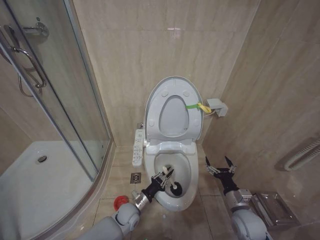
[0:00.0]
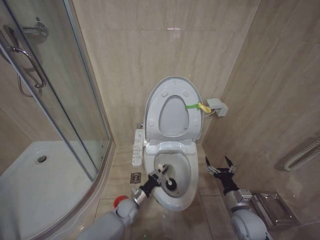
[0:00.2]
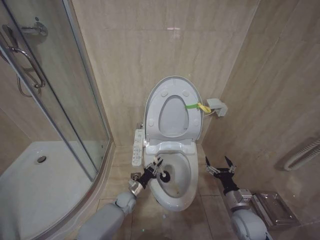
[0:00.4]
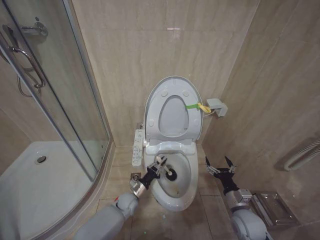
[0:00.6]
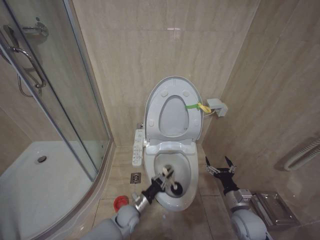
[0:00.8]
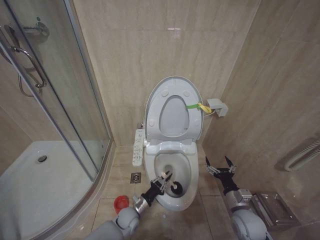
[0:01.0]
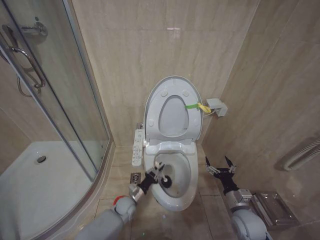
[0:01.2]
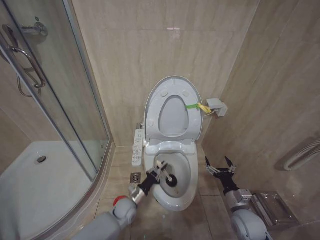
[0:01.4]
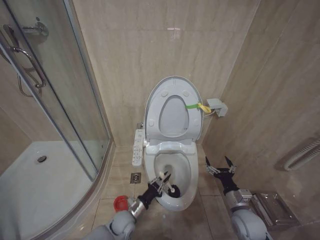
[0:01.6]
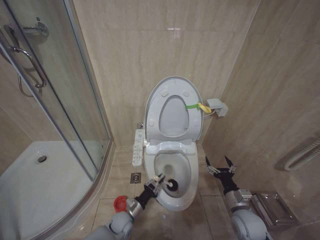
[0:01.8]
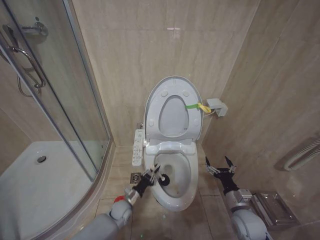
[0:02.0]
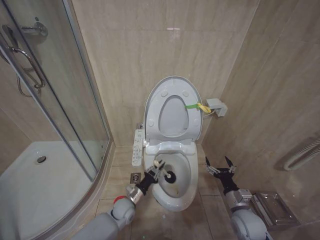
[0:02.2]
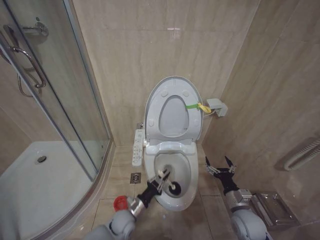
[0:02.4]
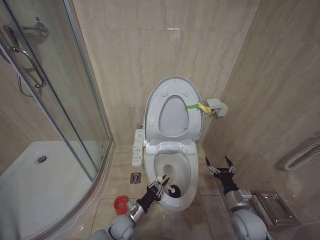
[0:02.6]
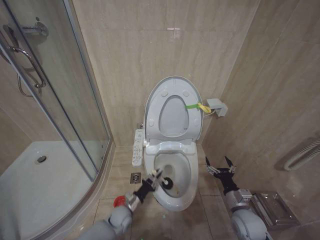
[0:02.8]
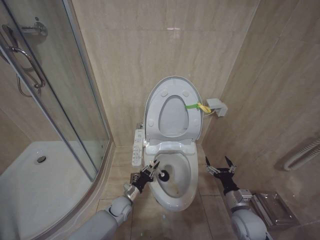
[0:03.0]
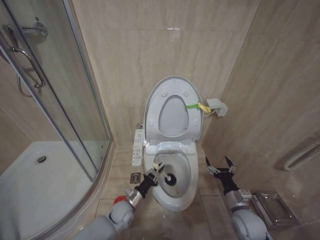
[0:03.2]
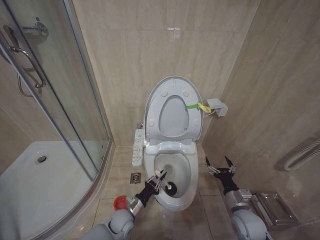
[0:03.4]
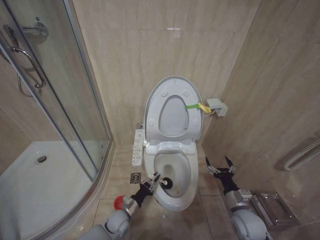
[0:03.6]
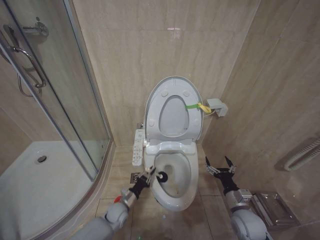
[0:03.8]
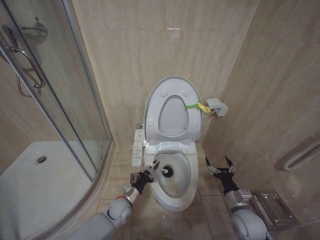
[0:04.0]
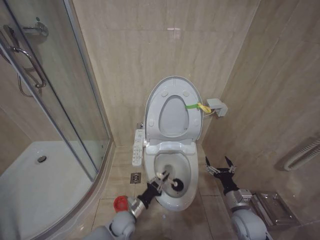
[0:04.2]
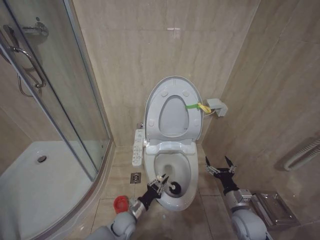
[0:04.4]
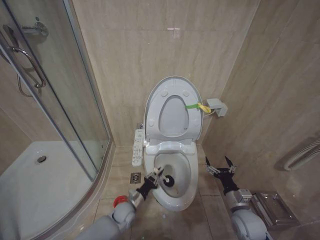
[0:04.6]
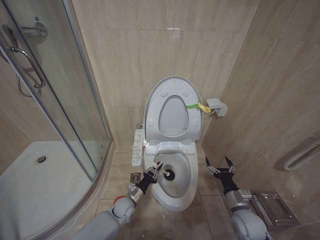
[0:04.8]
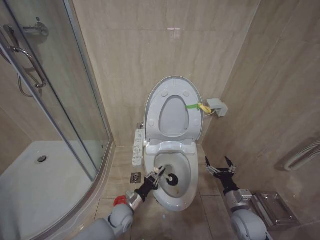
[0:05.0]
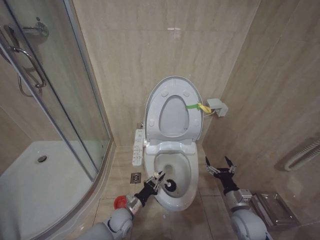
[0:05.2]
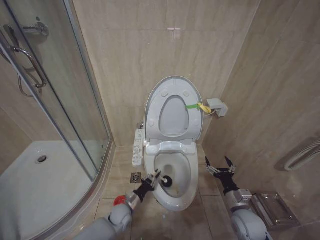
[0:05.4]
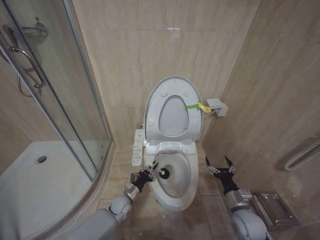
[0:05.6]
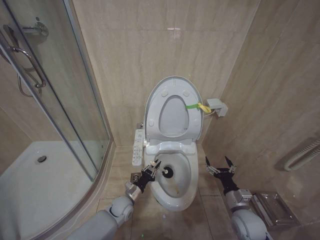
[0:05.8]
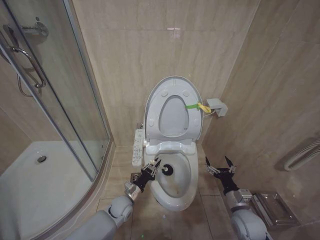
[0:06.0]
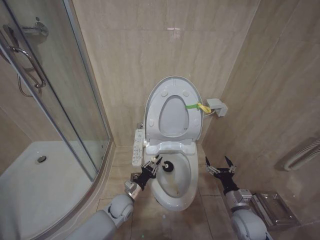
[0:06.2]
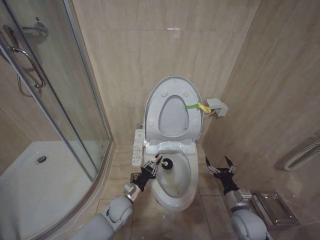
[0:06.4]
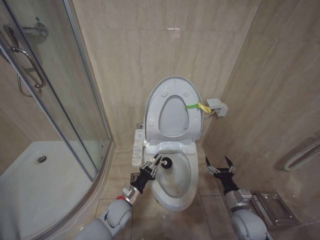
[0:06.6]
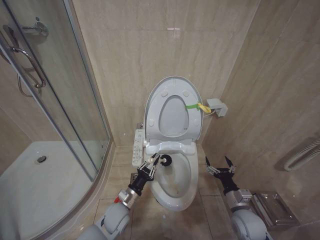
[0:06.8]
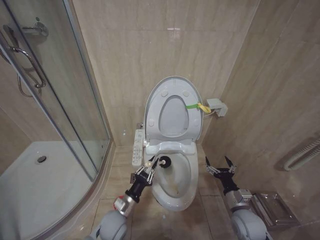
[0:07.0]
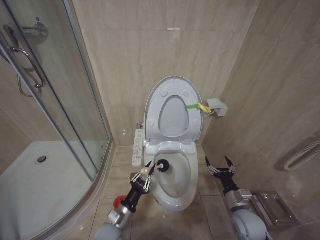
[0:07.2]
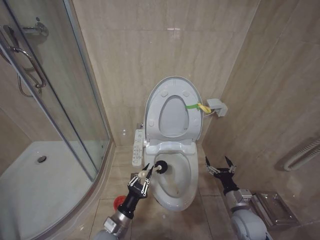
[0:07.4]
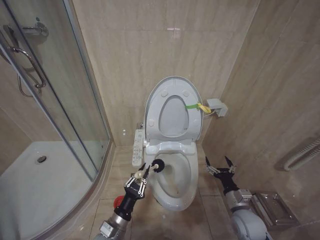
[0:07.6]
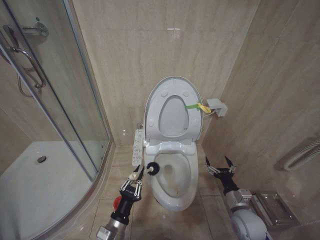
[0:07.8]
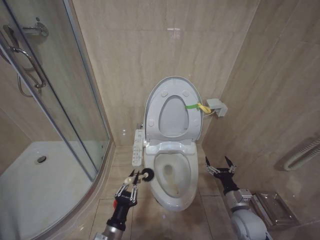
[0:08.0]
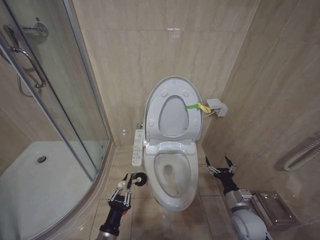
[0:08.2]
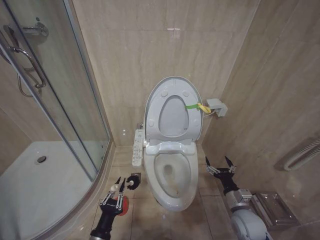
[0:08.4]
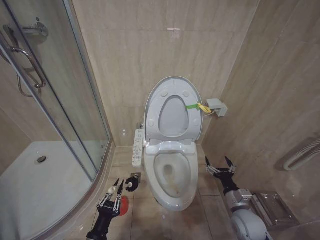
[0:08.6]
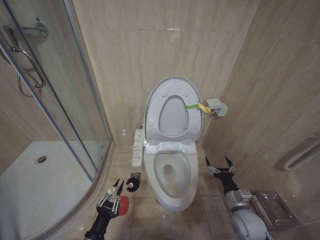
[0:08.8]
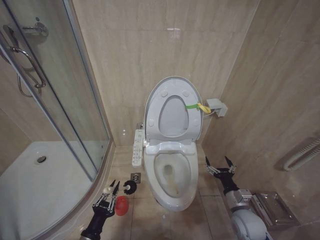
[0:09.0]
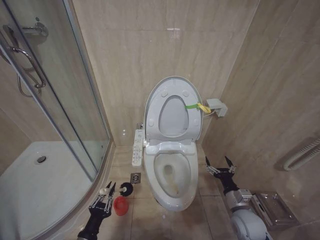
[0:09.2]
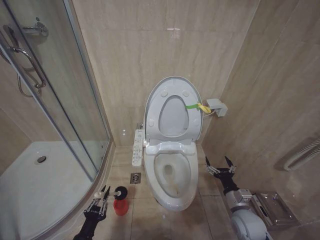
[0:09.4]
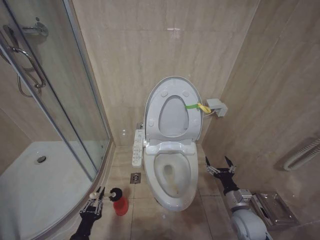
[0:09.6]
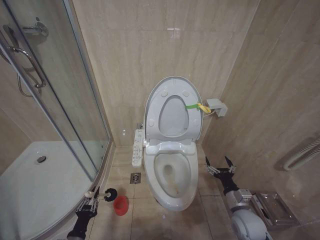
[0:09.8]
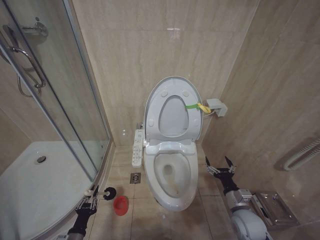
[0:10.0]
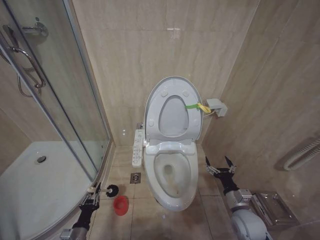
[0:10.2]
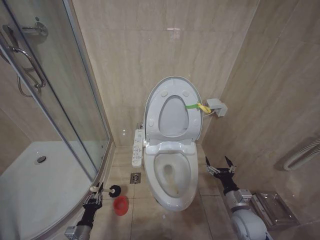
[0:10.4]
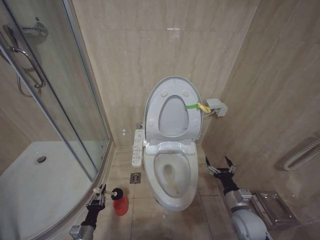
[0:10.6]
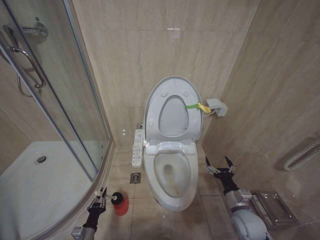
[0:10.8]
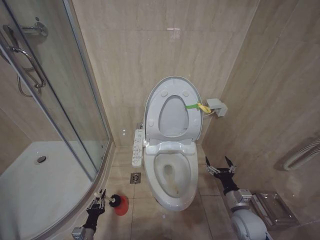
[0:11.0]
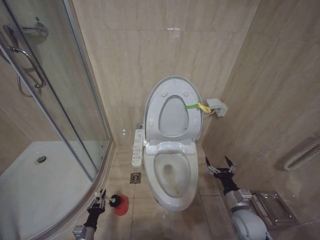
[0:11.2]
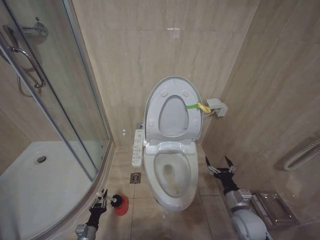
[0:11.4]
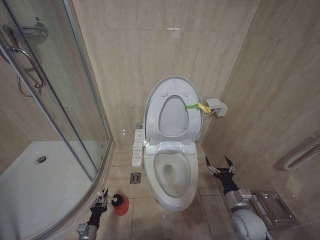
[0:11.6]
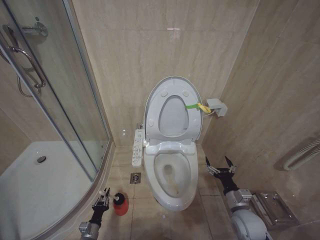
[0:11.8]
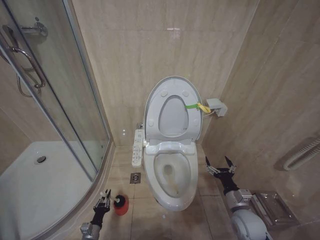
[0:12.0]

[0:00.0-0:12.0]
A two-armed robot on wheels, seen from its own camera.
Task of the whole recording: Open the toilet lid, clean the toilet bowl with a toilet brush, close the toilet lid, and flush.
0:00.0 to 0:01.6: The left gripper moves forward and backward over some 10 cm, changing direction 3 times.
0:01.6 to 0:03.0: The left gripper goes forward and backward, approximately 5 cm each way, reversing 2 times.
0:03.0 to 0:04.4: The left gripper goes forward and backward, approximately 5 cm each way, reversing 2 times.
0:04.4 to 0:06.0: The left gripper swings forward and backward, approximately 5 cm each way, with 2 reversals.
0:06.0 to 0:07.6: The left gripper moves backward and upward, about 15 cm.
0:07.6 to 0:09.0: The left gripper travels to the left and backward by about 10 cm.
0:09.0 to 0:10.4: The left gripper shifts some 15 cm downward, to the left and forward.
0:10.4 to 0:12.0: The left gripper moves downward, about 10 cm.

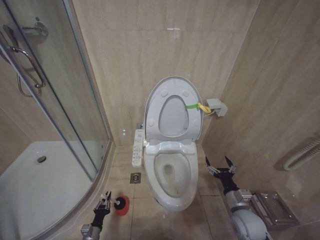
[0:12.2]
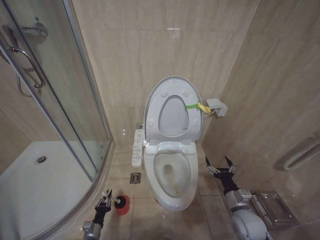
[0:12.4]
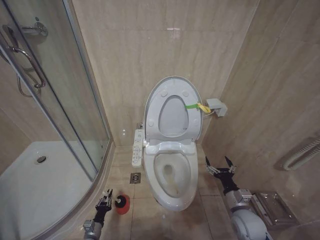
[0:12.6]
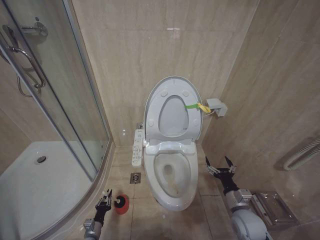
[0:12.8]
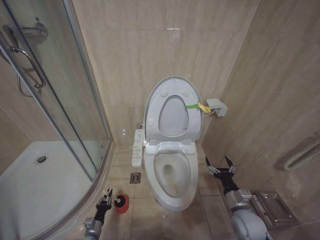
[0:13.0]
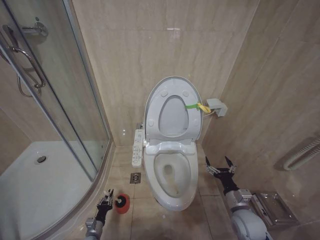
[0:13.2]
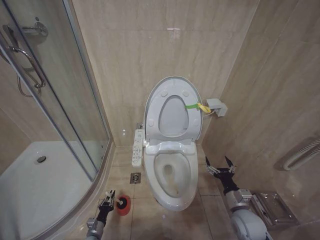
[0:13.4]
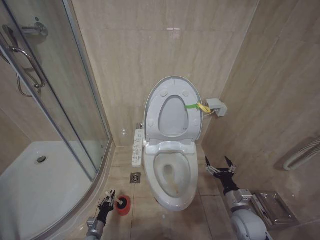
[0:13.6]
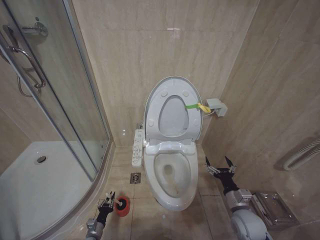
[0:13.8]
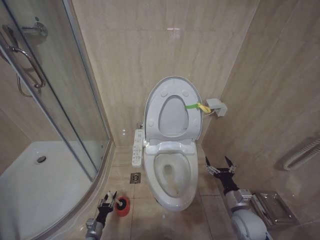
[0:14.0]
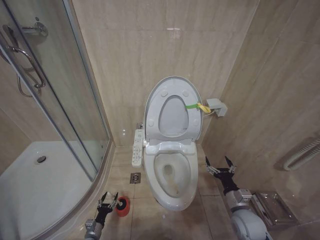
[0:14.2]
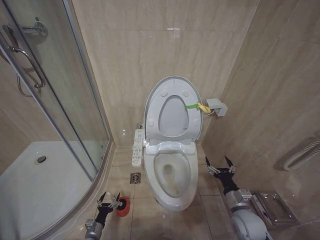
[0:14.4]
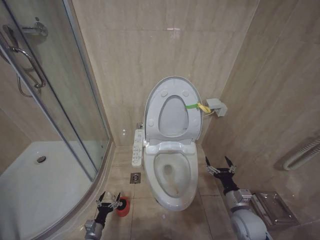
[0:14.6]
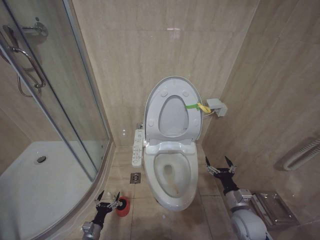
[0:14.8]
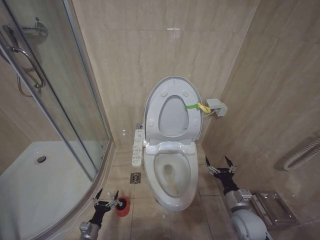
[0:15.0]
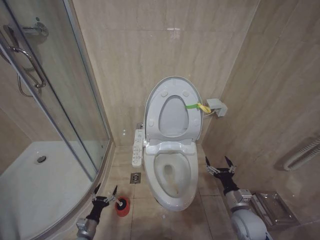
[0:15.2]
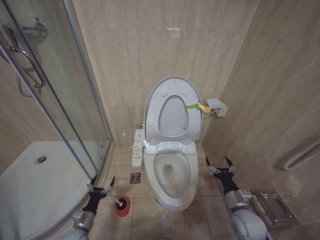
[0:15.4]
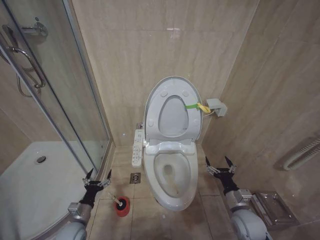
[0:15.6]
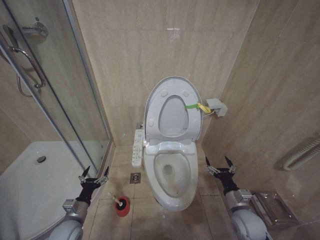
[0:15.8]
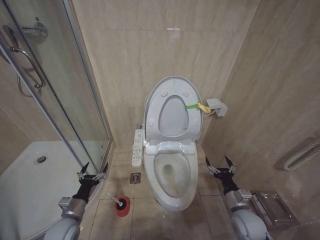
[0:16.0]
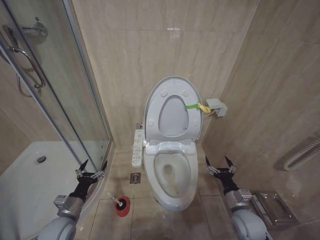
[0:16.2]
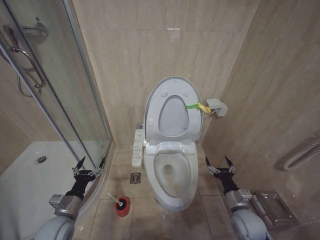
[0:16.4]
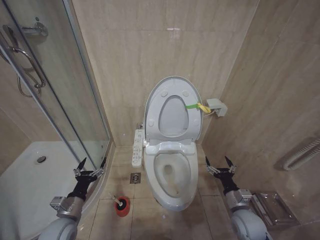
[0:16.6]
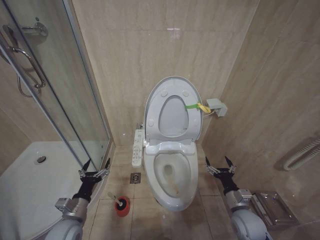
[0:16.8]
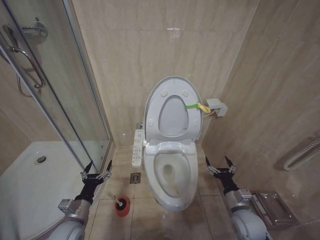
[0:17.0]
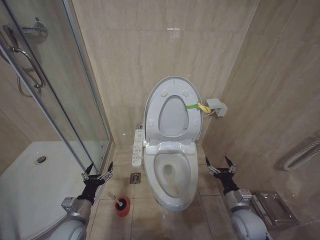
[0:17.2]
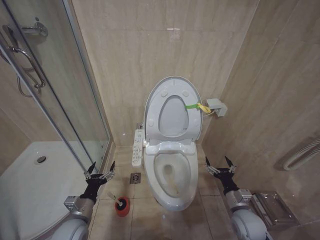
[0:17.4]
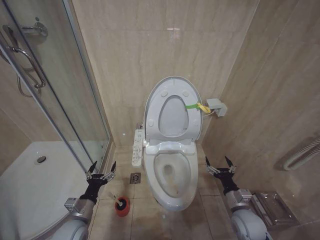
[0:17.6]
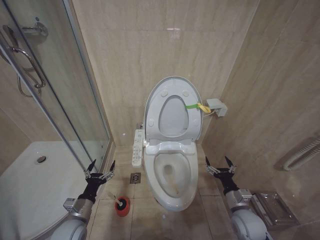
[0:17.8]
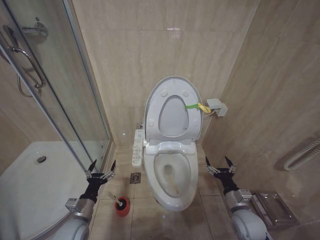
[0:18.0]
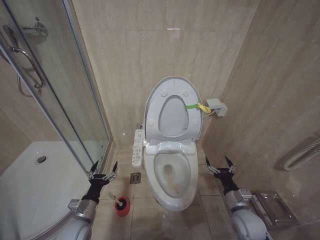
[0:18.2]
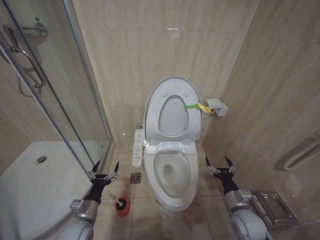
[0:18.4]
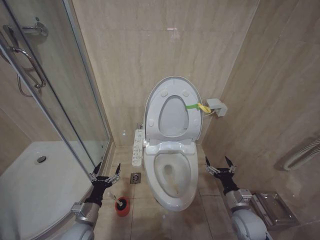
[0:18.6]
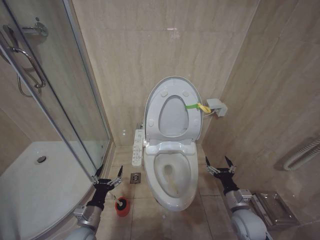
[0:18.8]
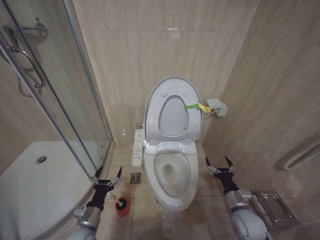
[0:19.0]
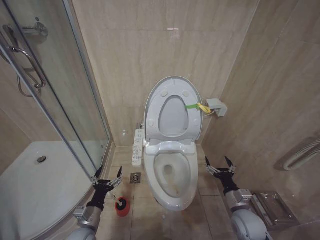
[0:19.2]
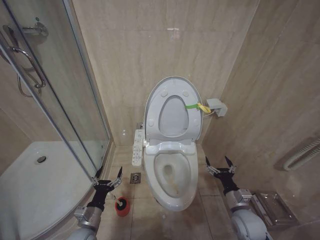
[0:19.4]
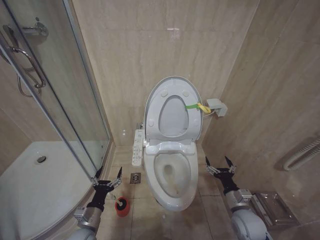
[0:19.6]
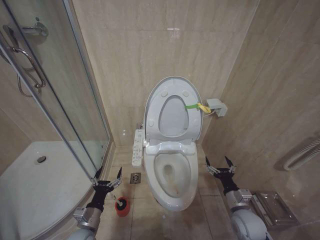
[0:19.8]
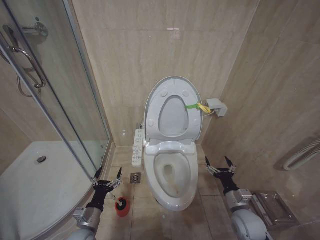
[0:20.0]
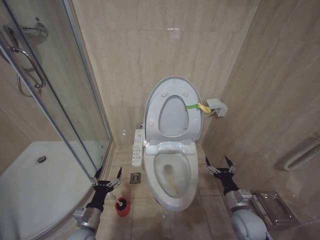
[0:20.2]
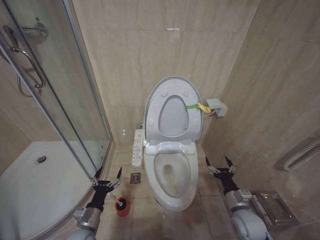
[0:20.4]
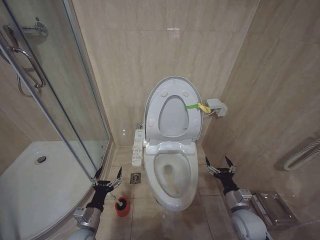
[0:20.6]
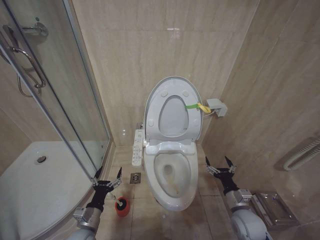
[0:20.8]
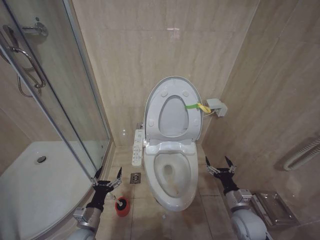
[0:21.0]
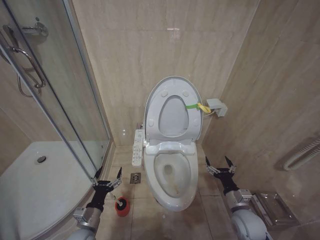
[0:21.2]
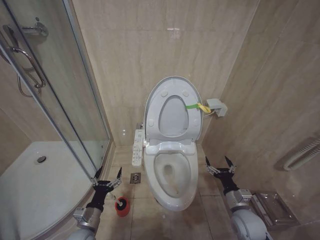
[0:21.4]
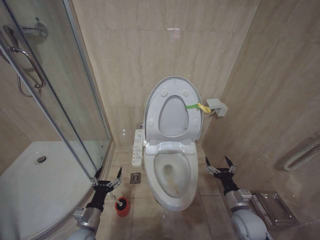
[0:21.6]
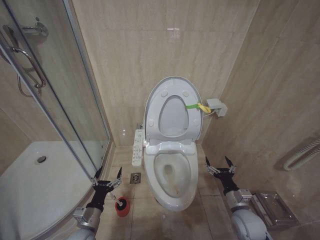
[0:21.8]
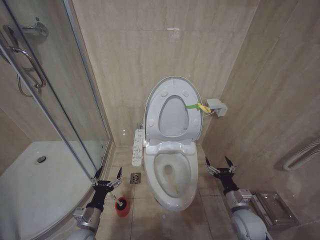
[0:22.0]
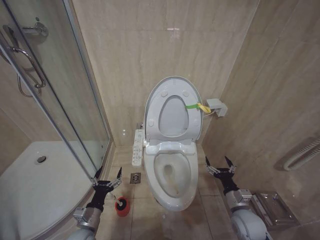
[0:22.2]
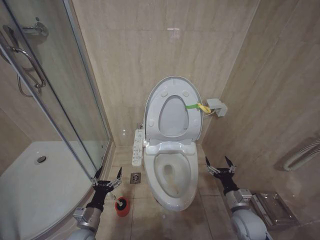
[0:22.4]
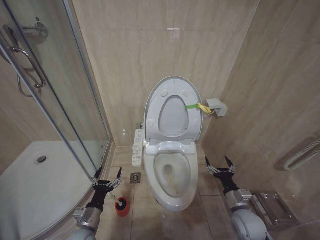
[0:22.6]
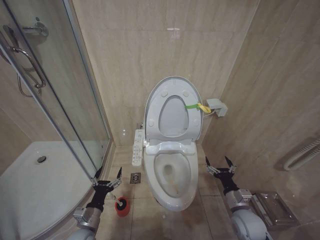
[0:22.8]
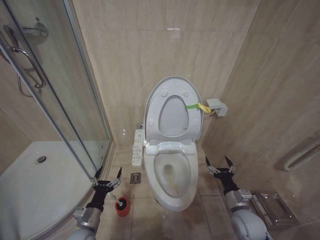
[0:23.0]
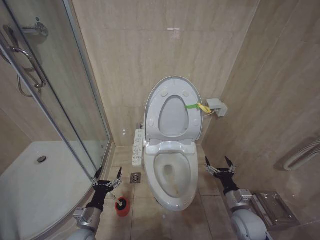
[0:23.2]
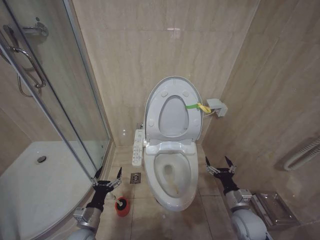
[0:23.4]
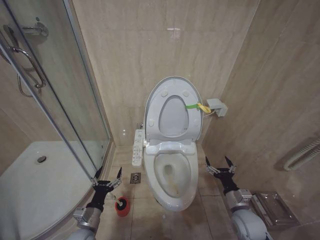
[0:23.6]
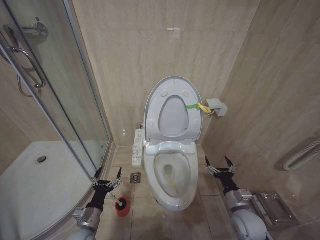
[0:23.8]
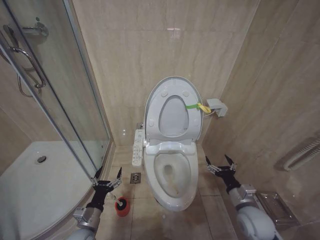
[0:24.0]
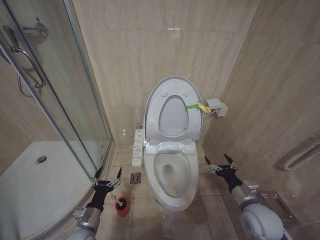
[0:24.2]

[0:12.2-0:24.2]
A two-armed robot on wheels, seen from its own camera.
Task of the whole recording: Open the toilet lid, clean the toilet bowl with a toilet brush, close the toilet lid, and flush.
0:13.8 to 0:15.2: The left gripper moves upward, some 10 cm, and opens its fingers.
0:15.2 to 0:16.6: The left gripper goes some 20 cm upward.
0:16.6 to 0:18.2: There are only small adjustments of the grippers.
0:18.2 to 0:19.8: The grippers stay close to where they were, moving slightly.
0:19.8 to 0:22.6: Both grippers stay put.
0:22.6 to 0:24.2: The right gripper heads upward, covering approximately 5 cm.
